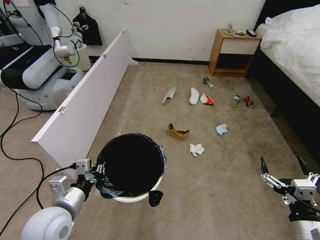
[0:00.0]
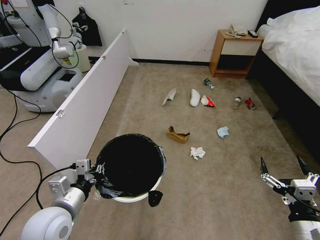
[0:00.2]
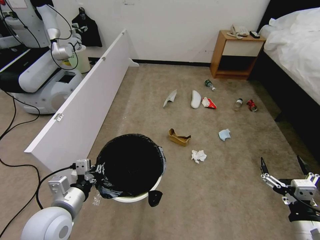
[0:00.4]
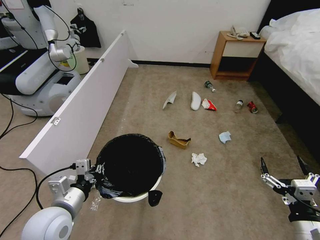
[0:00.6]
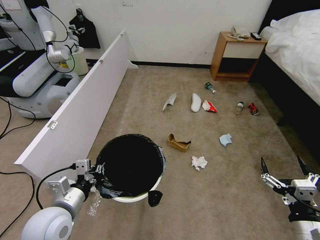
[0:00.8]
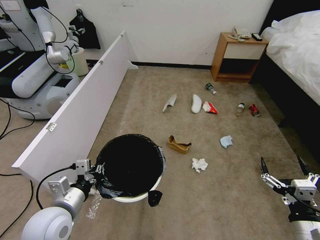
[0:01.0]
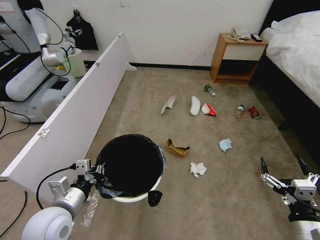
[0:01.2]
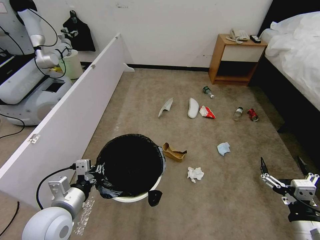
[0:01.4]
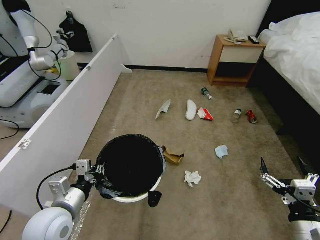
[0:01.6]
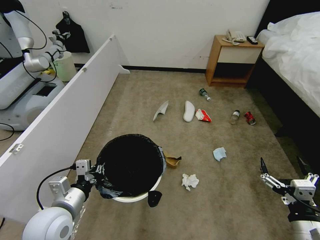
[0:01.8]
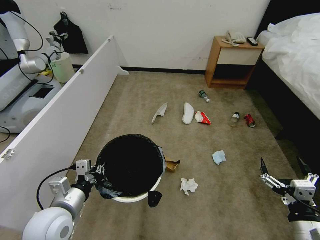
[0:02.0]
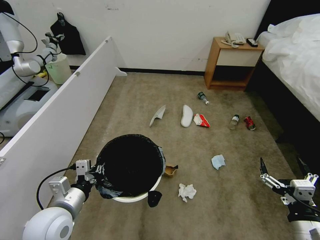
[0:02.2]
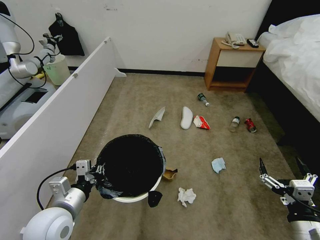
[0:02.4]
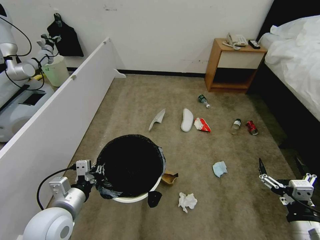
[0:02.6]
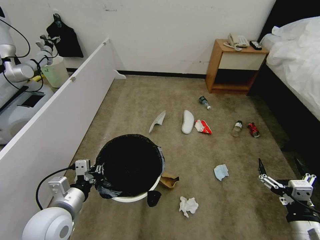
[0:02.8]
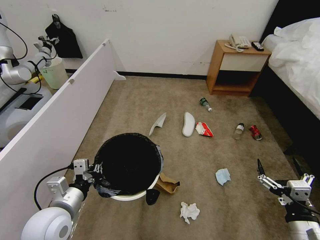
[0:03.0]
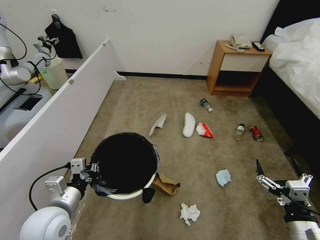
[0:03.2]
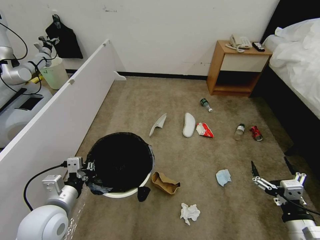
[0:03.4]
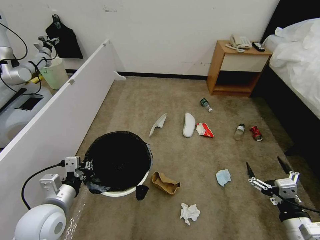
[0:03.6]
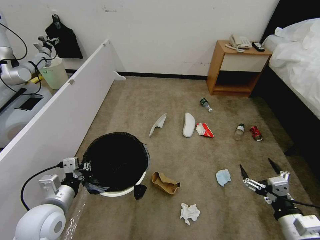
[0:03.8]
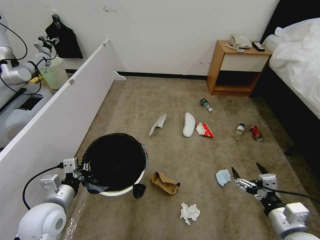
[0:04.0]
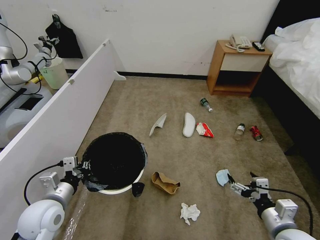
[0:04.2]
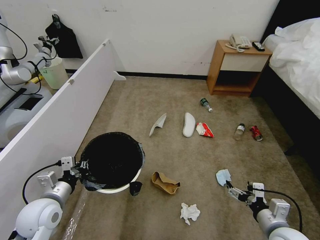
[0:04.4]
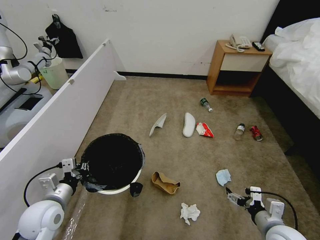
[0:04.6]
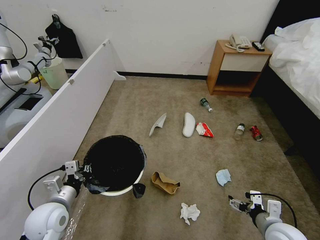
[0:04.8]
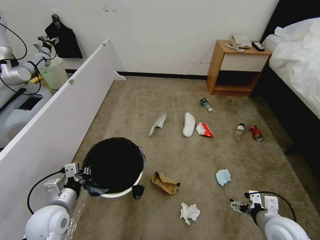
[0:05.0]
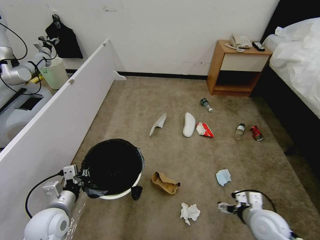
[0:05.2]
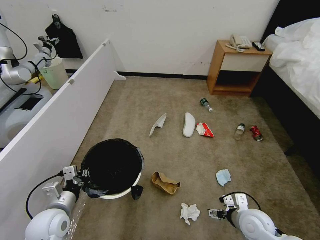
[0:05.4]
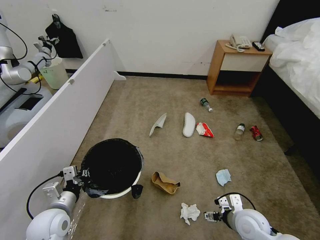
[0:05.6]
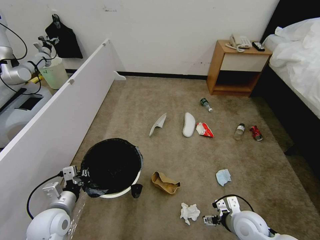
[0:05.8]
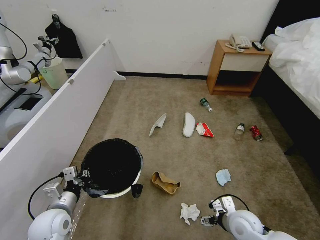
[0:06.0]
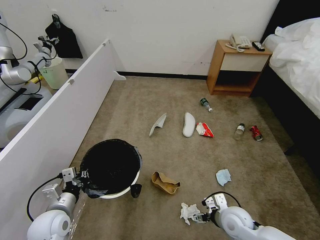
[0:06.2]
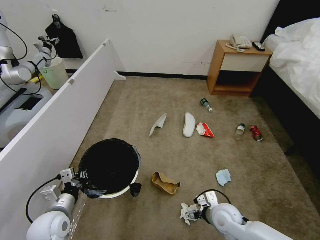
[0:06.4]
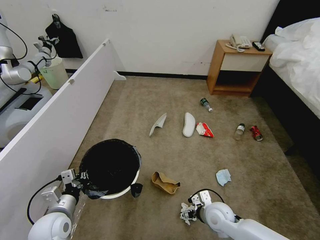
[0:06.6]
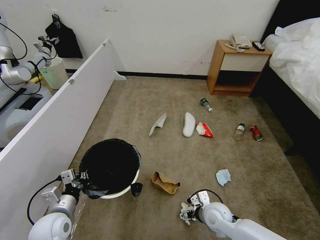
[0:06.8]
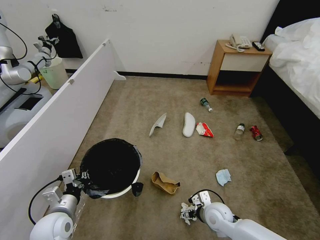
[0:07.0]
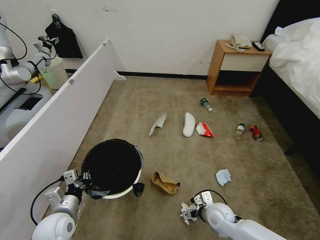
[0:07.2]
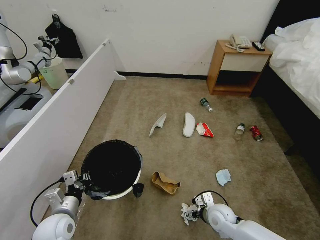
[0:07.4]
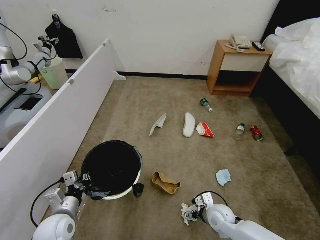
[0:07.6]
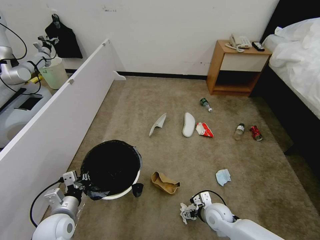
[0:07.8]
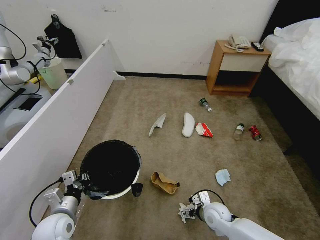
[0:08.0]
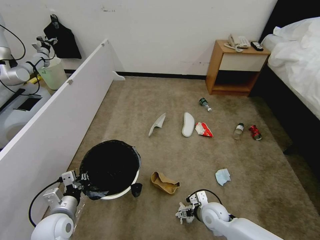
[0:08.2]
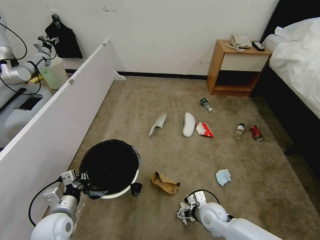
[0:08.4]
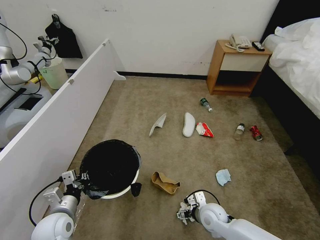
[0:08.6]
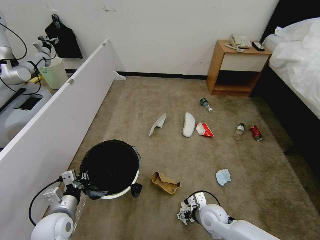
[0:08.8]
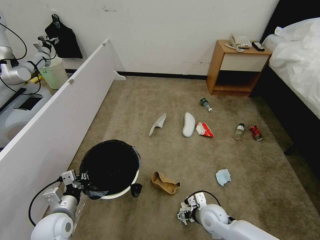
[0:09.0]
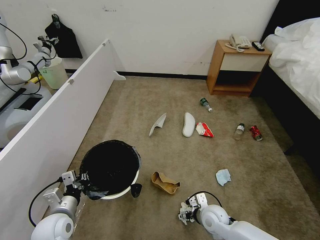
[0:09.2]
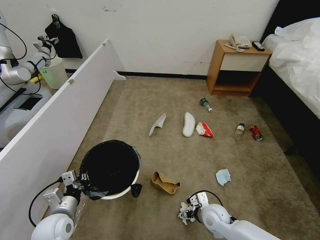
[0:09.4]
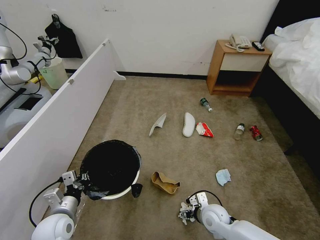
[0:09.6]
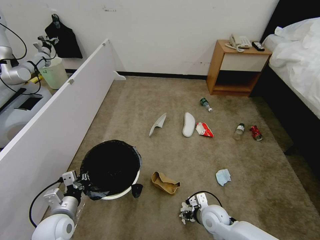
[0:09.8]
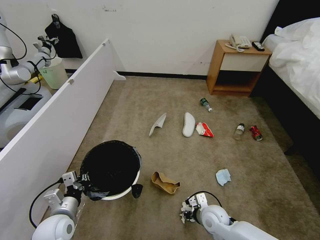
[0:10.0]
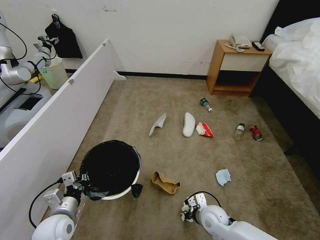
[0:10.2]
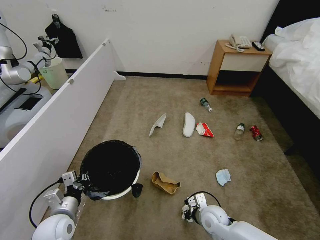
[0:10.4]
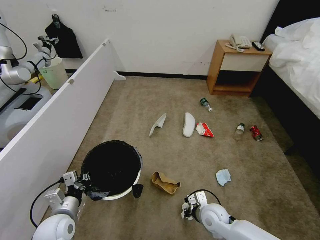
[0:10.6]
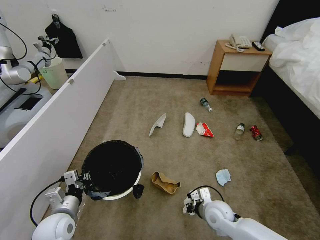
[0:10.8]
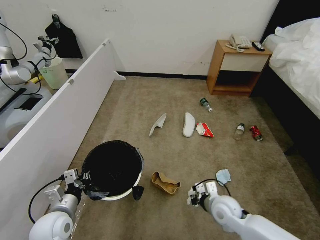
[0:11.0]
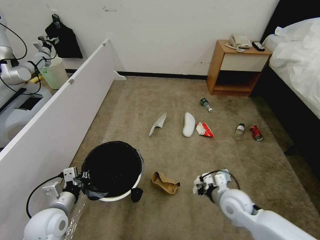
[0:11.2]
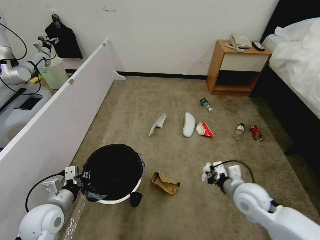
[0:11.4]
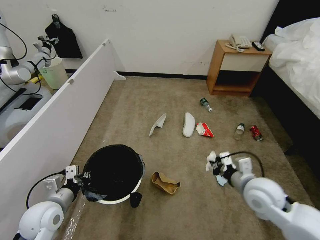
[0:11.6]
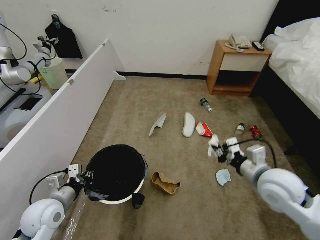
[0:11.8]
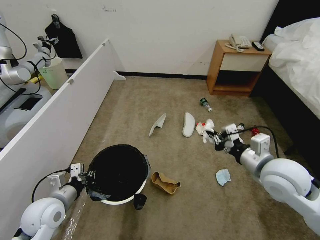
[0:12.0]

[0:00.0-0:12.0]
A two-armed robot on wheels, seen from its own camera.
Task of the whole recording: Pick up the trash bin, then pick up the garbage from the floor and place it into the trash bin.
0:03.0 to 0:04.4: The right gripper shifts approximately 5 cm forward. Meanwhile the left gripper goes some 5 cm to the left.
0:04.4 to 0:06.0: The right gripper heads to the left, forward and downward, covering some 10 cm.
0:06.0 to 0:07.6: The right gripper travels downward by about 5 cm.
0:07.6 to 0:09.0: The grippers move only a little.
0:09.0 to 0:10.4: The right gripper closes up.
0:10.4 to 0:12.0: The left gripper is displaced upward by about 5 cm. The right gripper heads upward, covering some 30 cm.

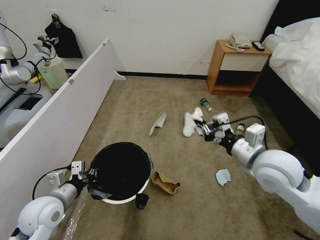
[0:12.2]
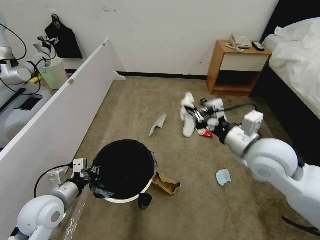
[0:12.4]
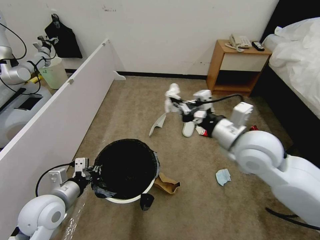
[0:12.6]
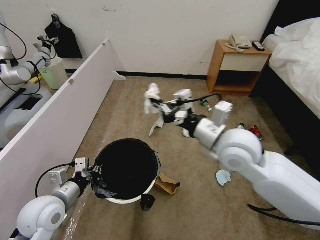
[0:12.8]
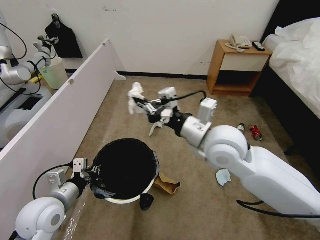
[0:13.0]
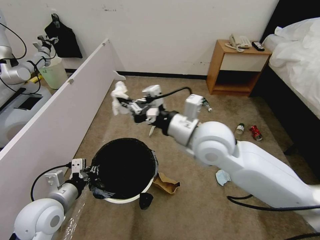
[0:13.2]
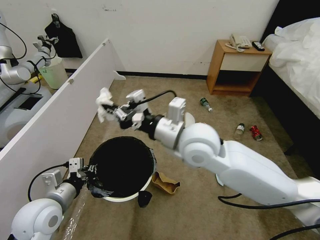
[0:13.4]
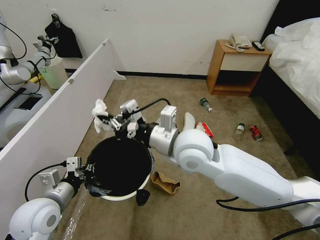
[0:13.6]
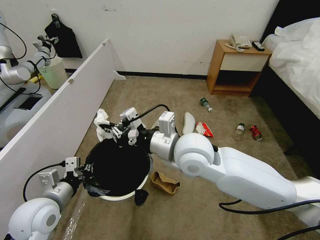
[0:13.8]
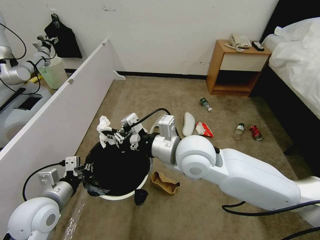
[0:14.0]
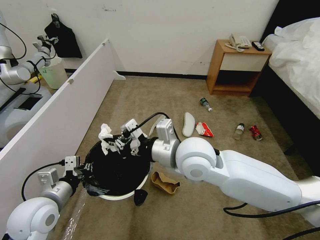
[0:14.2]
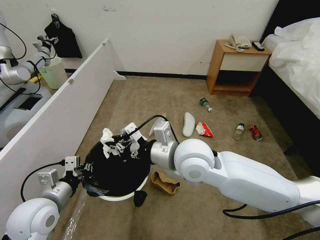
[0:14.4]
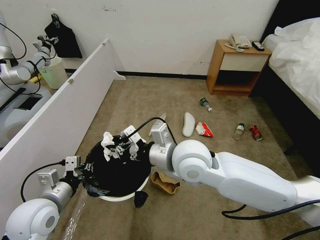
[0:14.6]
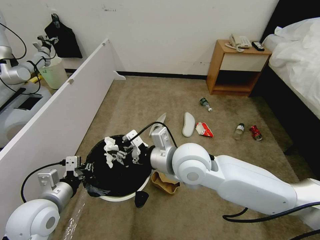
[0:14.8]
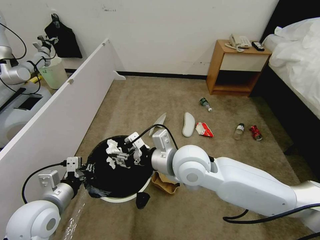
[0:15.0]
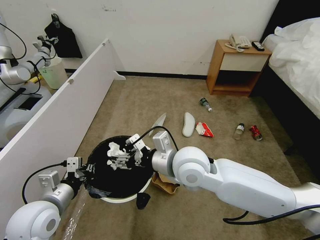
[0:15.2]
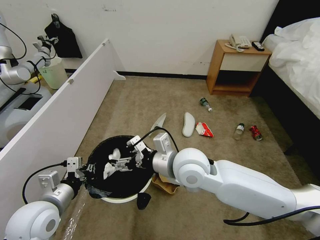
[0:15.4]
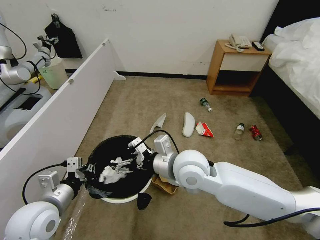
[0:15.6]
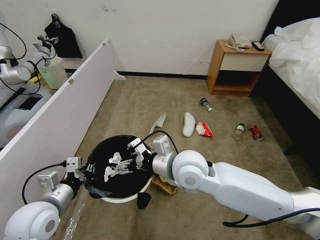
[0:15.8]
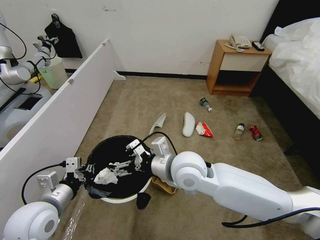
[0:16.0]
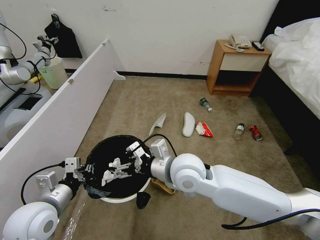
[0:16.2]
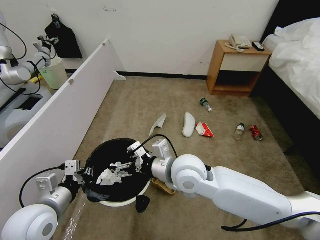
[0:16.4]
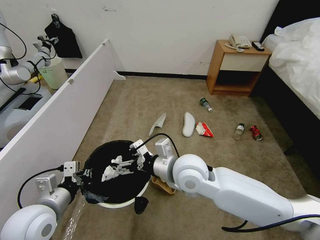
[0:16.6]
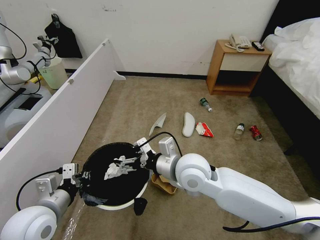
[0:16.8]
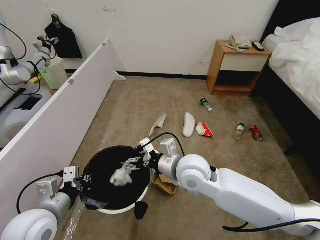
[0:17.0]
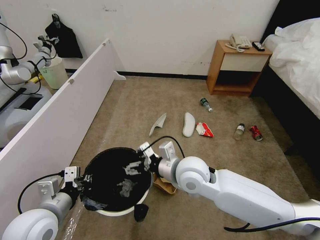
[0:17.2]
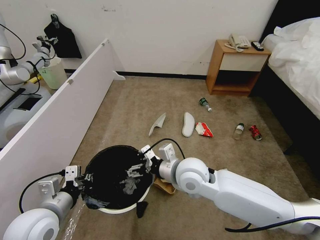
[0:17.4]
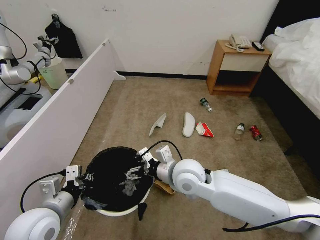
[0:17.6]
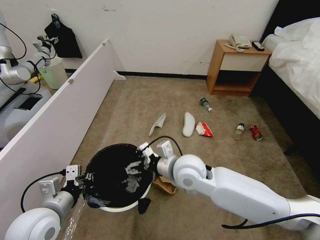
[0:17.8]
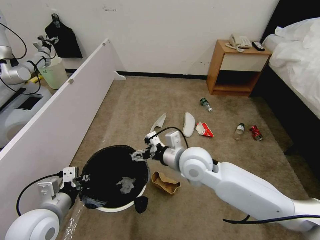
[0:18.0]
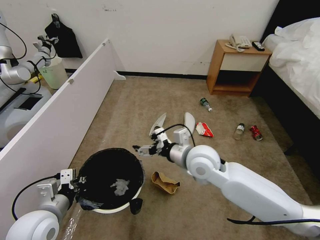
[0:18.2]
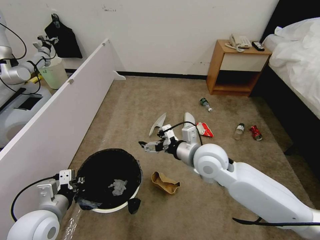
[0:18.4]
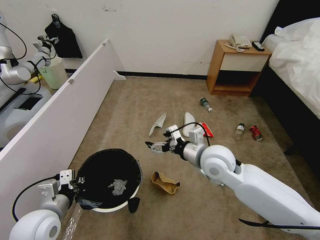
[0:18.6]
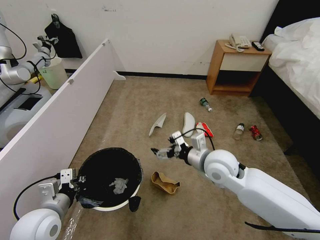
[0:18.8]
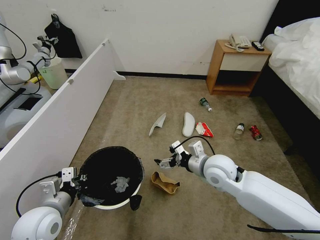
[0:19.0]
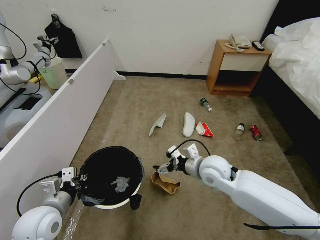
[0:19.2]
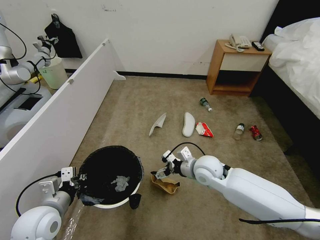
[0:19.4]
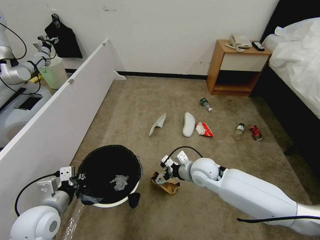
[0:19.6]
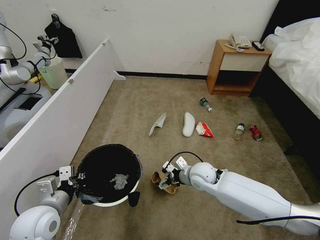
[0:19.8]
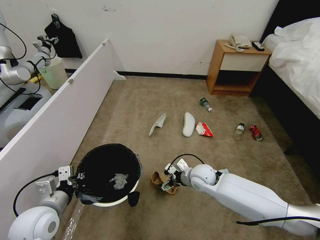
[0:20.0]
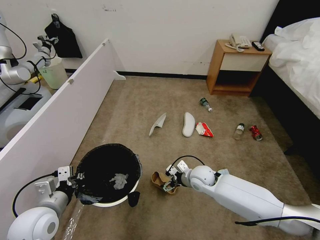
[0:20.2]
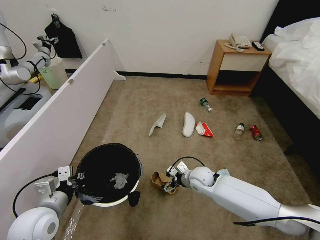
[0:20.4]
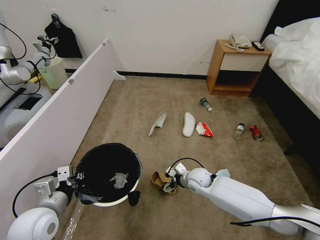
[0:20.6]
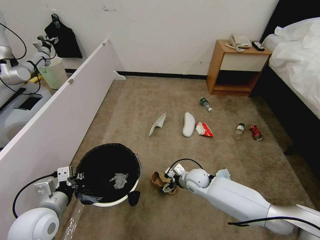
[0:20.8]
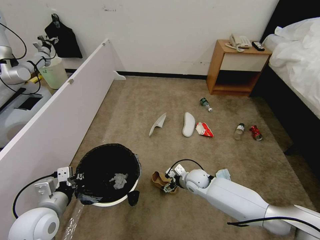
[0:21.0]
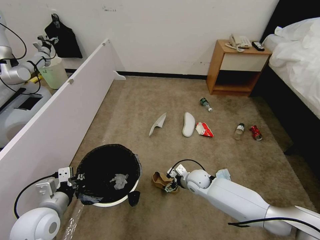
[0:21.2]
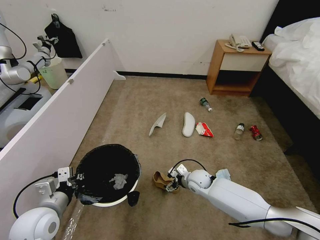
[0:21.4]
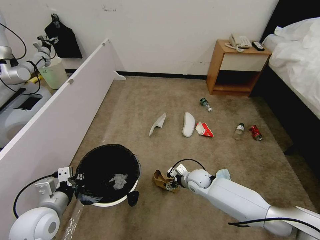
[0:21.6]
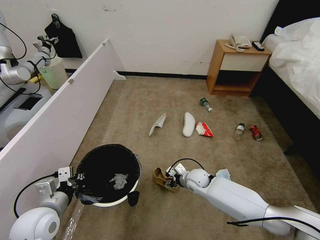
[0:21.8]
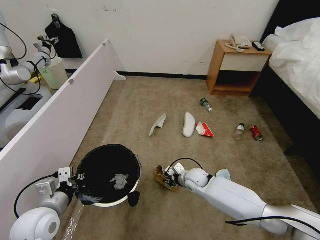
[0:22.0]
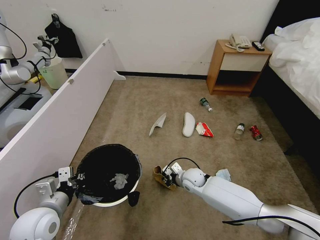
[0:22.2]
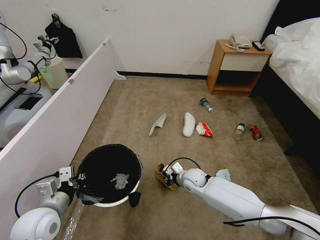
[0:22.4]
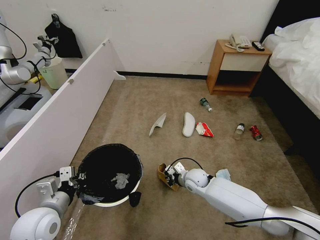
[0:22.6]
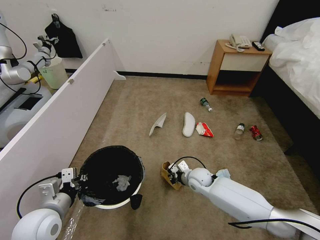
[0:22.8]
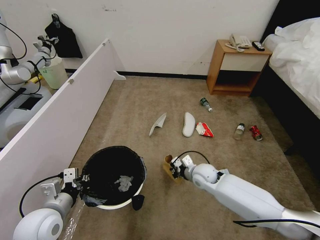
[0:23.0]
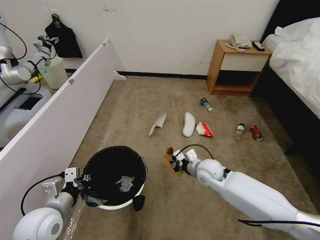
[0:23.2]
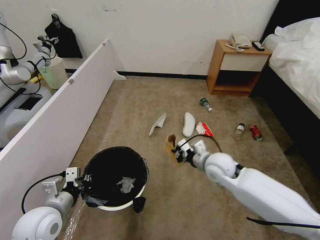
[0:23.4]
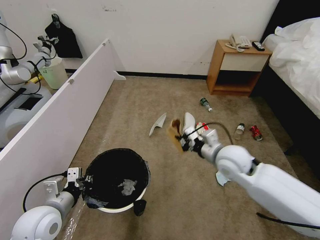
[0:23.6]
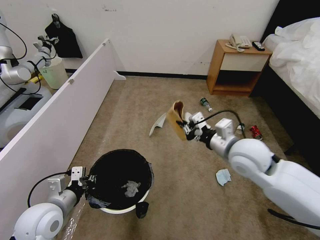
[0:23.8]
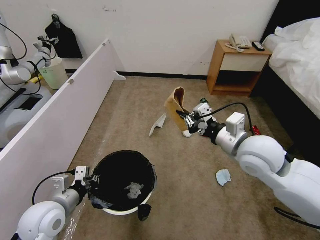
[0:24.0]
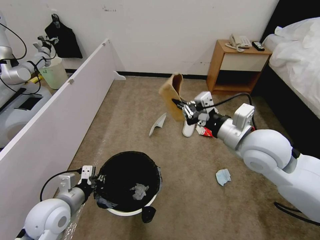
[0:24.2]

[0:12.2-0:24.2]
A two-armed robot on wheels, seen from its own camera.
Task of the whole recording: Pick up the trash bin, then pick up the garbage from the floor and place it into the trash bin.
0:12.2 to 0:13.8: The right gripper moves to the left, about 20 cm.
0:13.8 to 0:15.2: The right gripper opens its fingers.
0:15.2 to 0:16.6: The right gripper opens.
0:16.6 to 0:18.2: The right gripper changes place by approximately 5 cm.
0:18.2 to 0:19.8: The right gripper shifts approximately 15 cm downward.
0:19.8 to 0:21.2: The right gripper shifts some 10 cm downward.
0:21.2 to 0:22.6: The right gripper closes its fingers.
0:22.6 to 0:24.2: The right gripper moves upward, some 35 cm.
